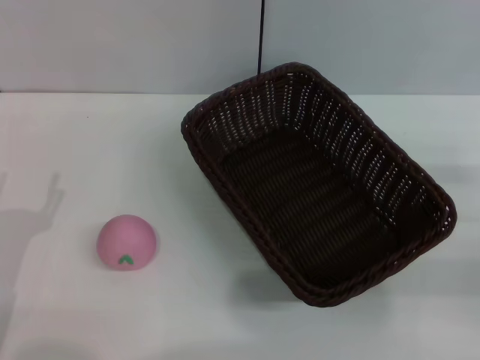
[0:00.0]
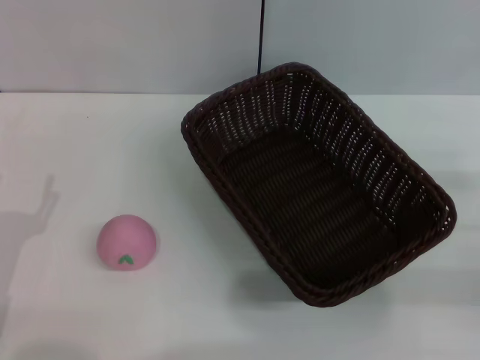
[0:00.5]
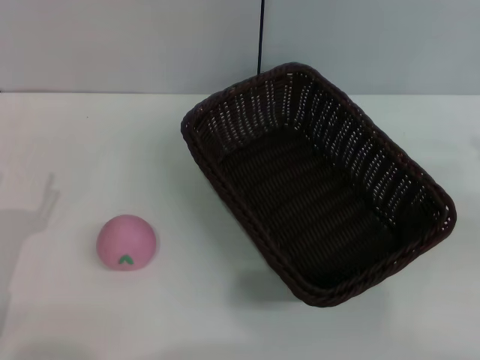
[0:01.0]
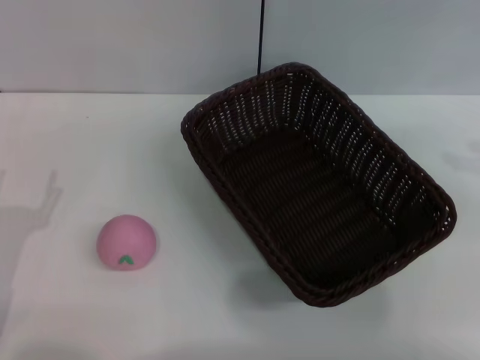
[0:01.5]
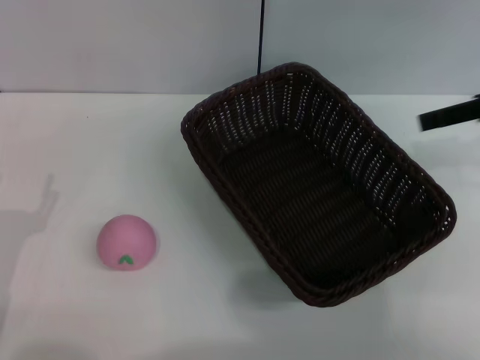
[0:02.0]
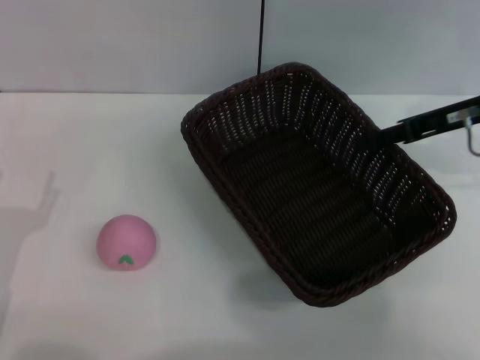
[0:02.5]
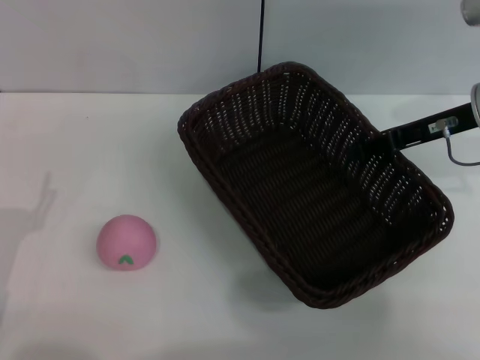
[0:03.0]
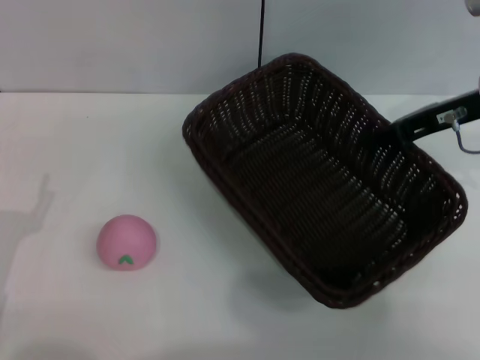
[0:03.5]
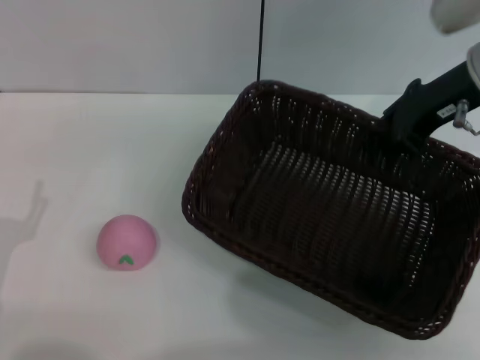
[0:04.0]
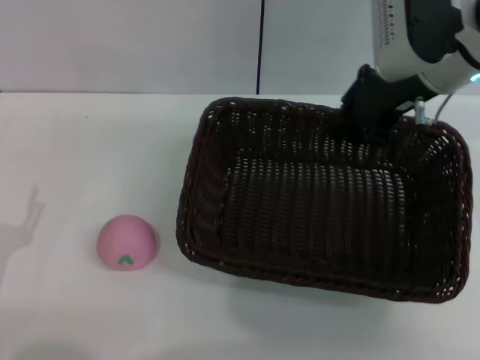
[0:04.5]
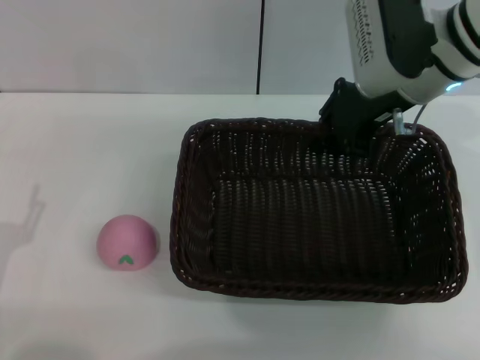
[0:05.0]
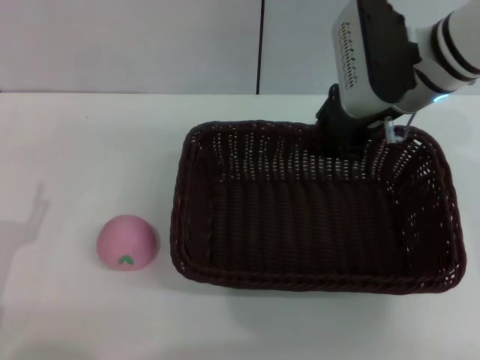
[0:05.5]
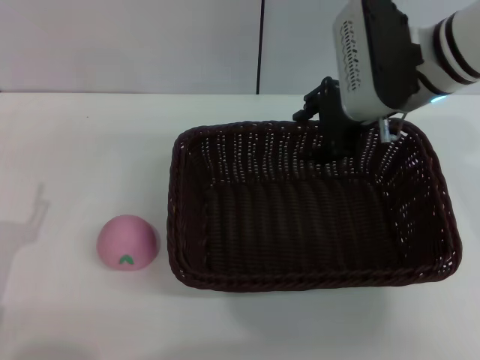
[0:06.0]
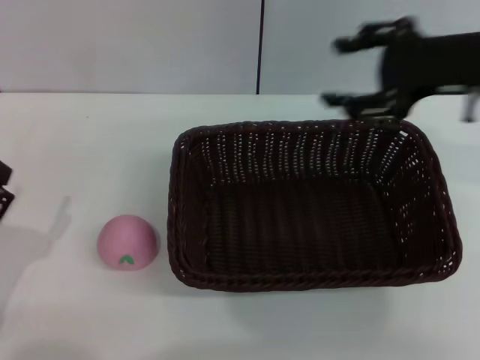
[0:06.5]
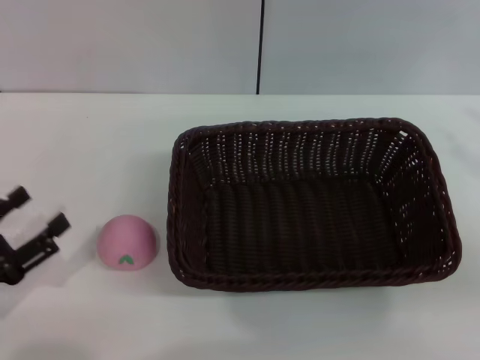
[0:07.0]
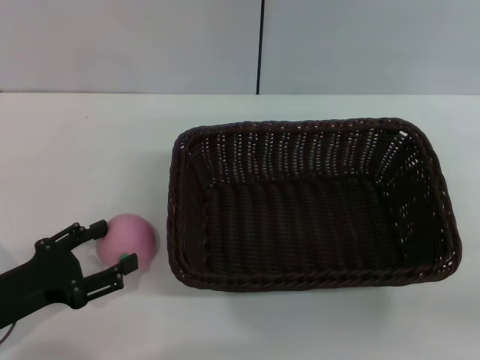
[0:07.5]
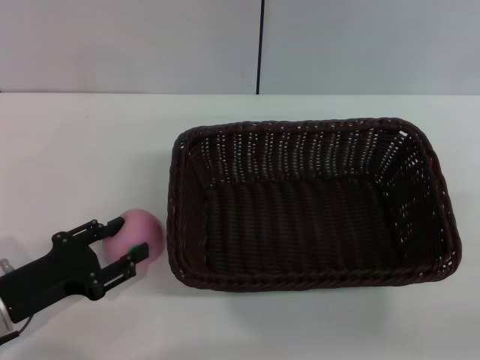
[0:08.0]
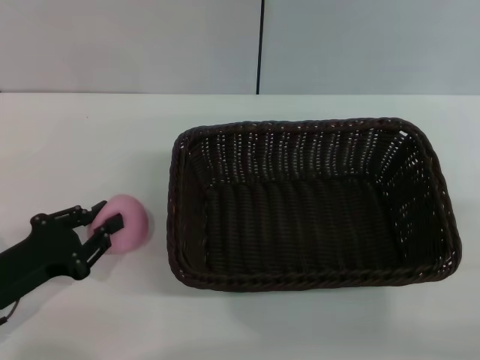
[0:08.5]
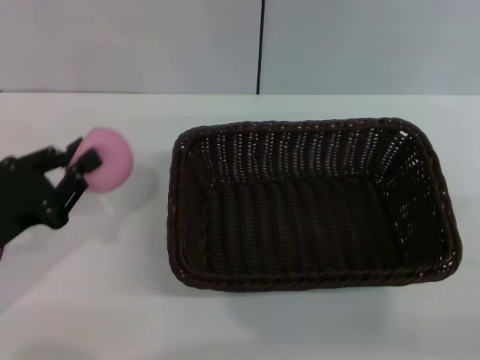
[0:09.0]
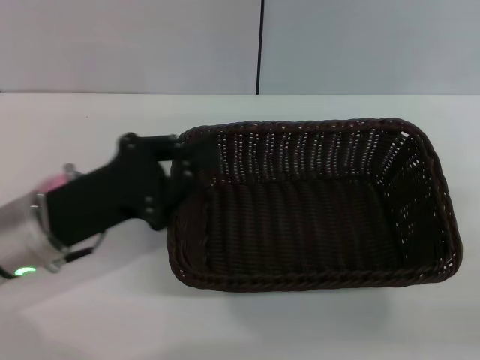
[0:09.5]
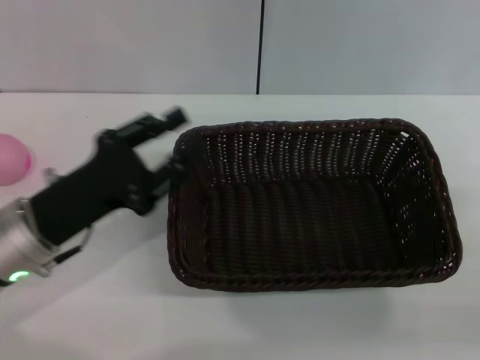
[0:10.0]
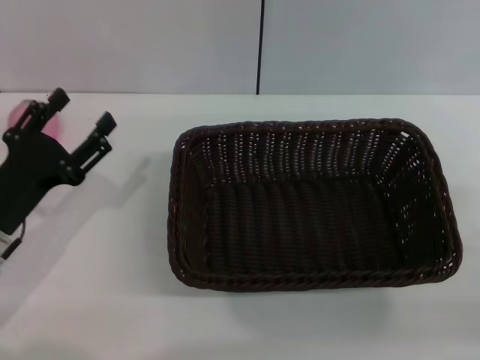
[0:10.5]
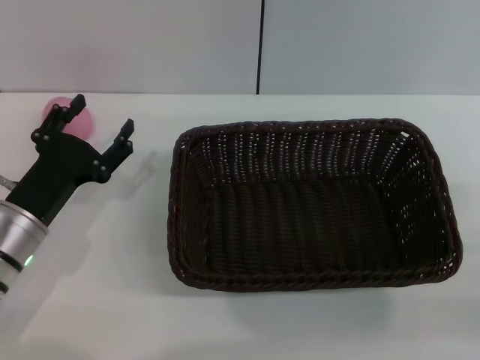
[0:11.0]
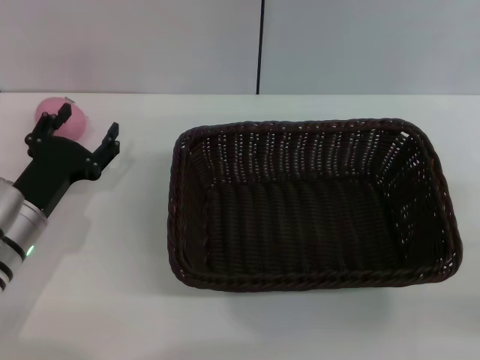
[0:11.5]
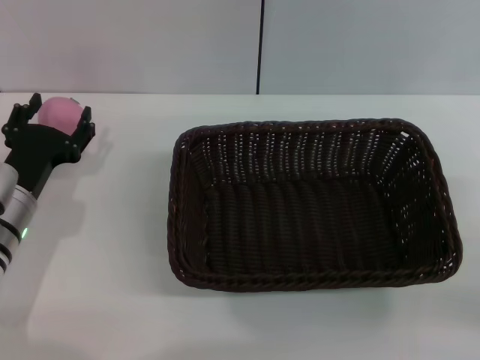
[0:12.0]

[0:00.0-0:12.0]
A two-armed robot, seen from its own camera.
Step, 0:00.0 to 0:03.5: Pick up the dark basket with the right gripper.
Step, 0:04.0 to 0:06.0: Place the dark basket in the center of view with the right gripper.
0:00.0 to 0:02.0: The right gripper travels upward and forward by some 20 cm.
0:02.0 to 0:04.0: The right gripper goes roughly 10 cm to the left, and closes its fingers.
0:04.0 to 0:06.0: The right gripper moves to the left, about 5 cm, and opens up.
0:06.0 to 0:08.0: The right gripper is displaced to the right and backward by some 30 cm, and opens; the left gripper changes place by approximately 5 cm.
0:08.0 to 0:10.0: The left gripper moves upward and to the right, approximately 10 cm, and closes its fingers.
0:10.0 to 0:12.0: The left gripper is displaced downward by roughly 5 cm, and opens up.

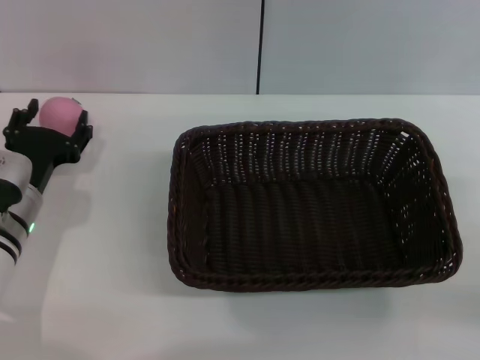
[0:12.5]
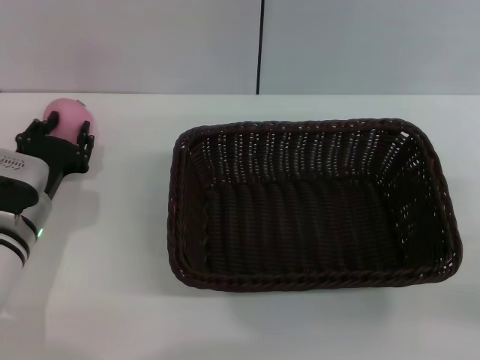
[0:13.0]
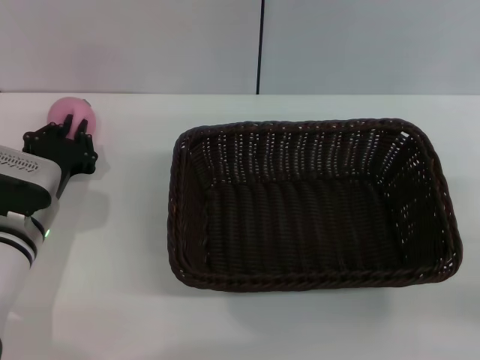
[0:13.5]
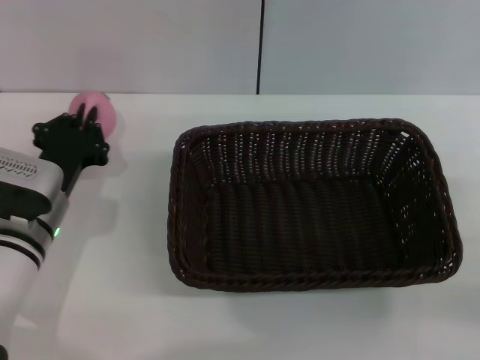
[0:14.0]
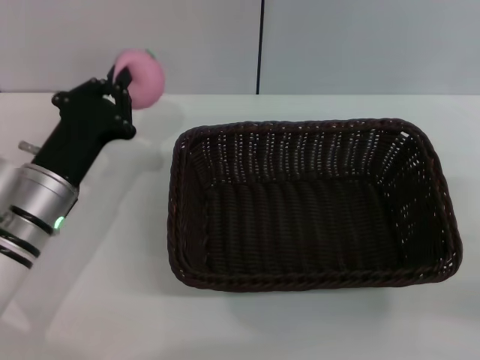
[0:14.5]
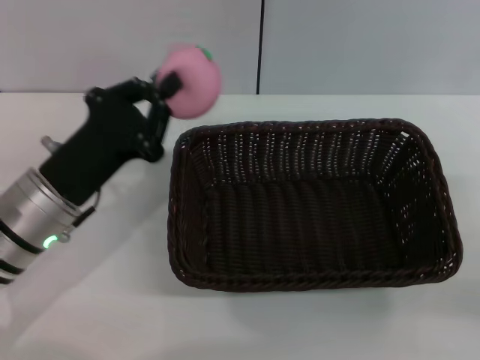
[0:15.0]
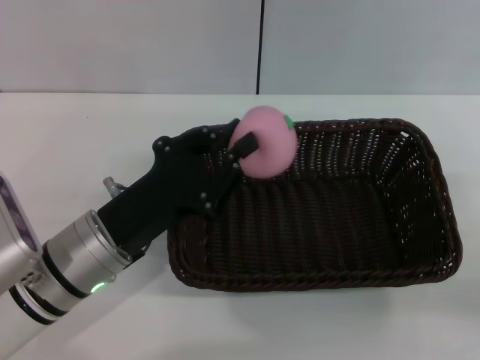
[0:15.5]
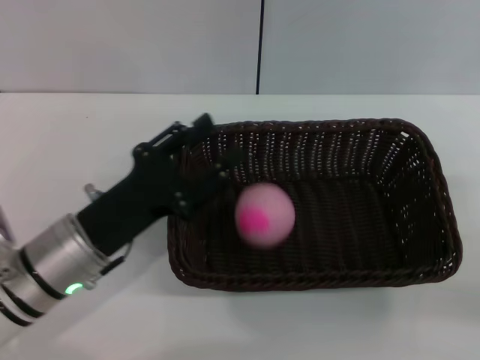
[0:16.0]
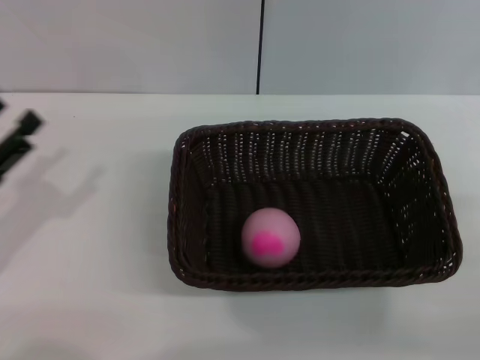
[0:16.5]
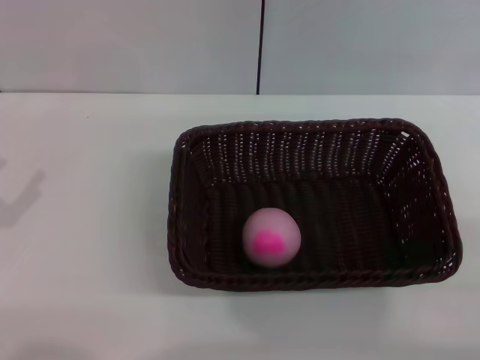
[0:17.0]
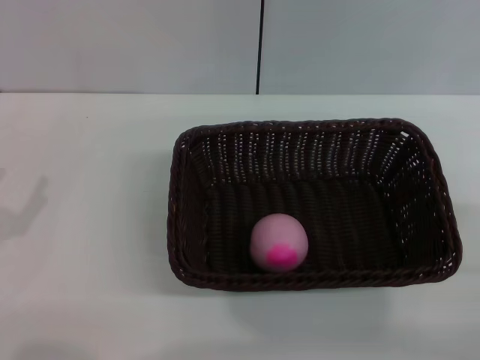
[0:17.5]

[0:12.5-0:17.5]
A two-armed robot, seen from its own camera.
Step, 0:12.5 to 0:14.5: Pick up the peach with the left gripper.
Step, 0:15.0 to 0:16.0: Place the peach into the basket with the left gripper.
0:12.5 to 0:15.0: The left gripper goes about 5 cm upward, and closes.
0:15.0 to 0:17.5: The left gripper travels to the left and backward by some 15 cm, and opens.
